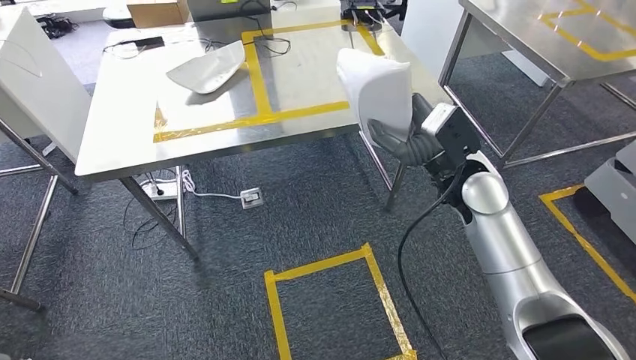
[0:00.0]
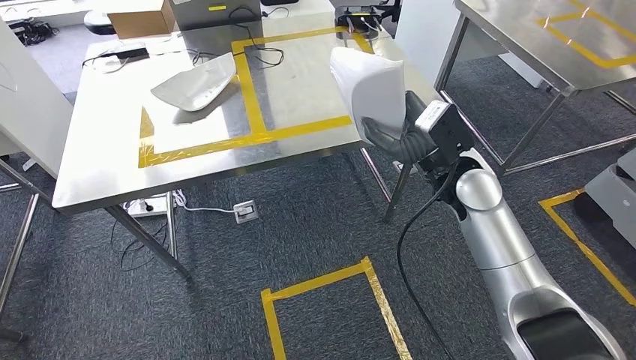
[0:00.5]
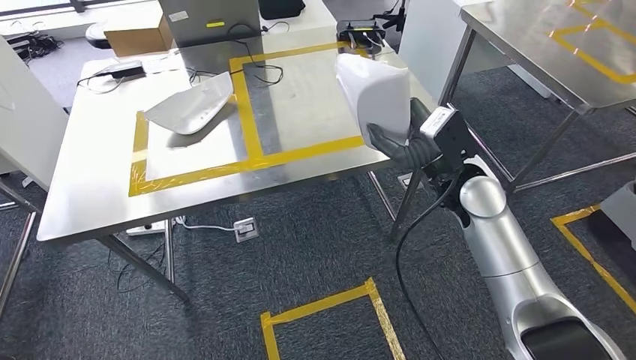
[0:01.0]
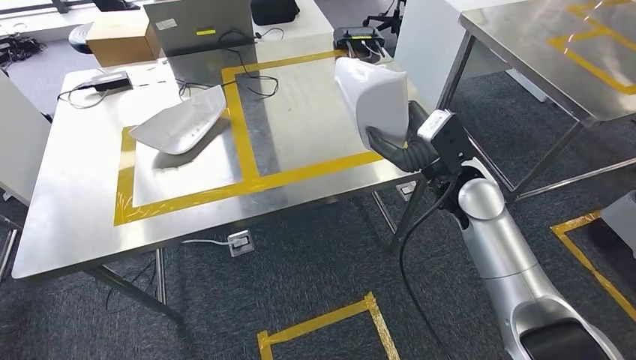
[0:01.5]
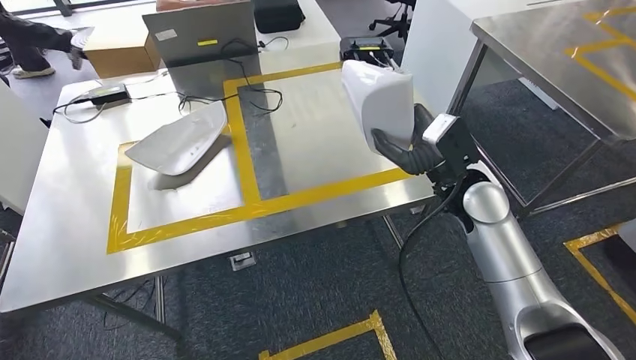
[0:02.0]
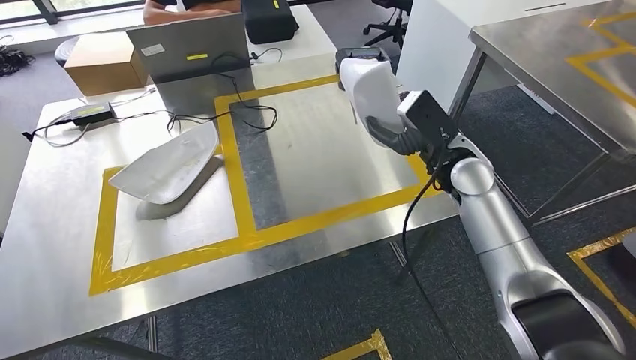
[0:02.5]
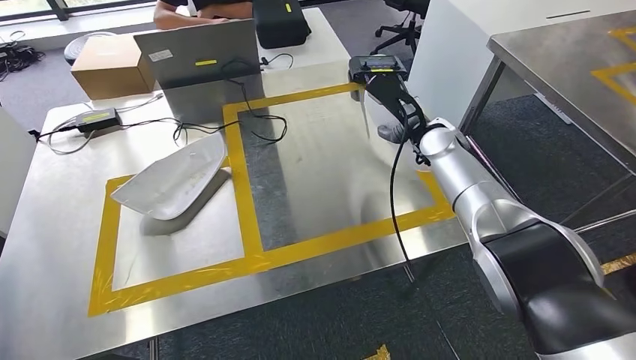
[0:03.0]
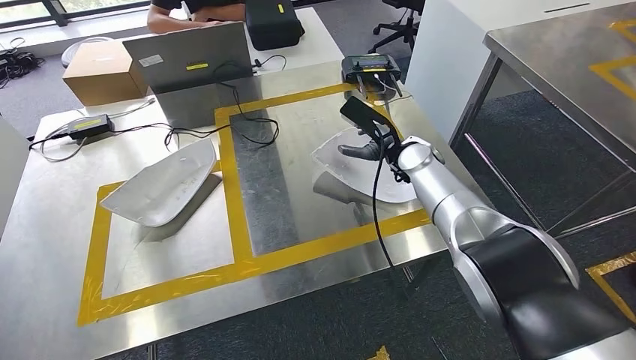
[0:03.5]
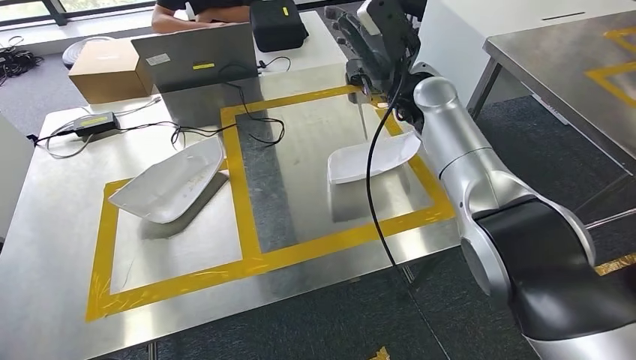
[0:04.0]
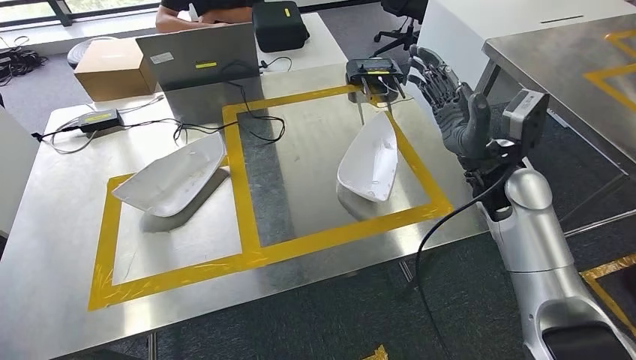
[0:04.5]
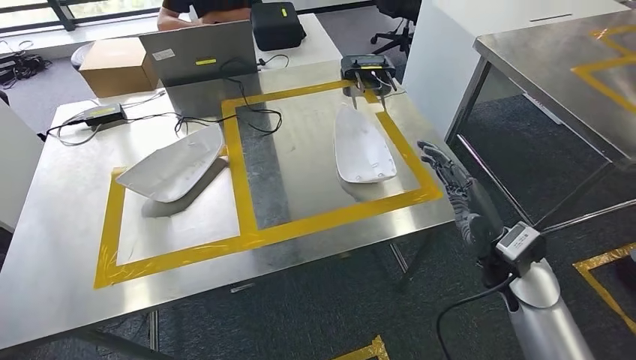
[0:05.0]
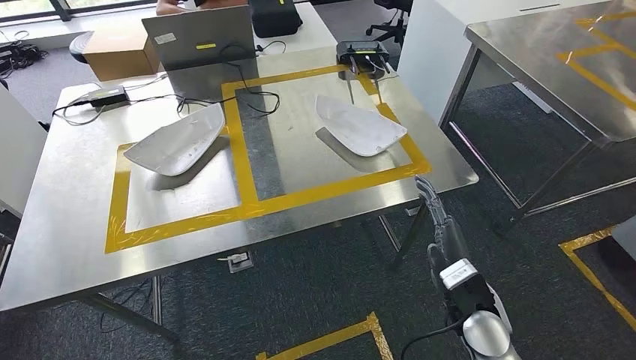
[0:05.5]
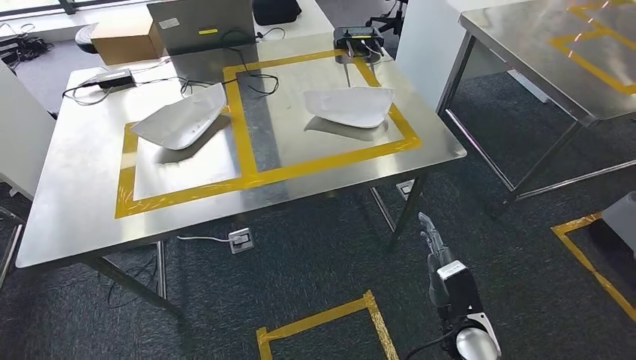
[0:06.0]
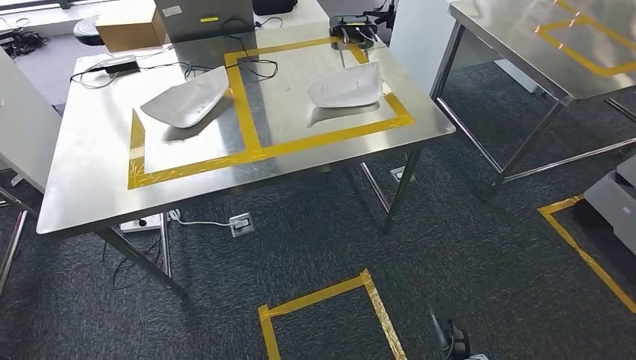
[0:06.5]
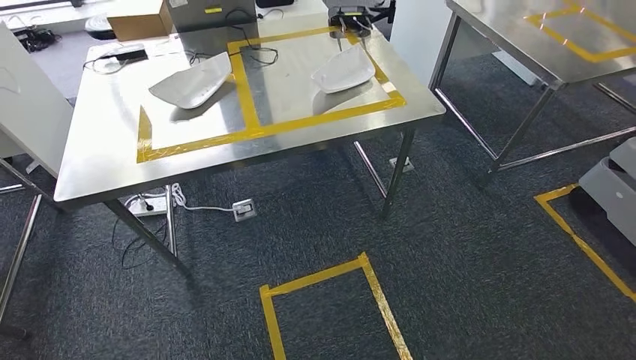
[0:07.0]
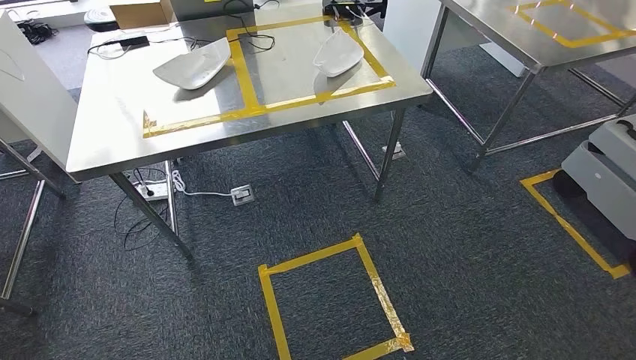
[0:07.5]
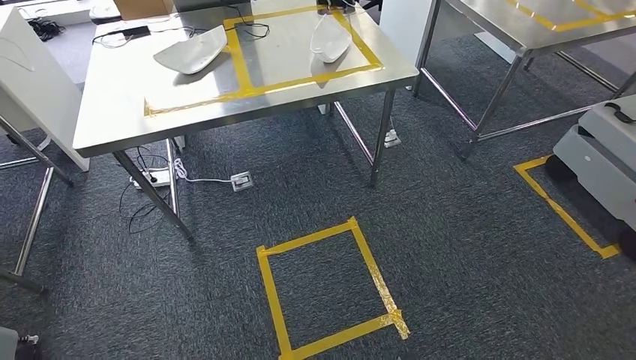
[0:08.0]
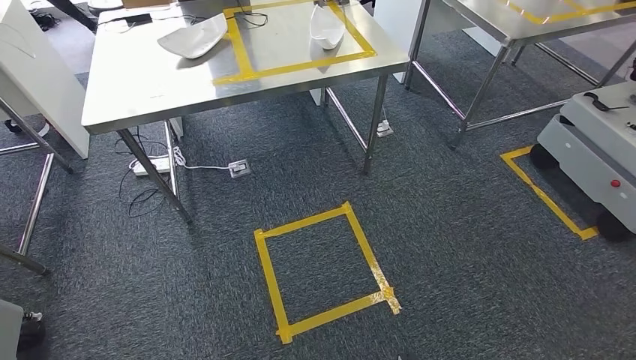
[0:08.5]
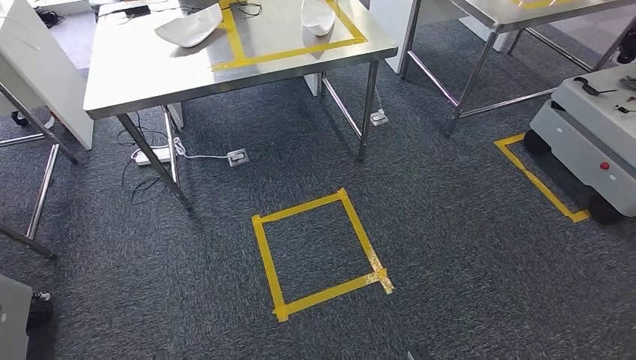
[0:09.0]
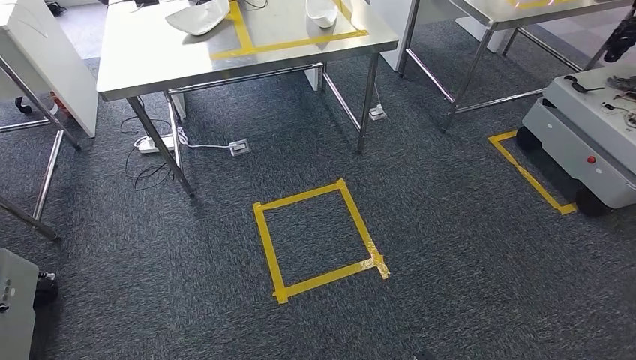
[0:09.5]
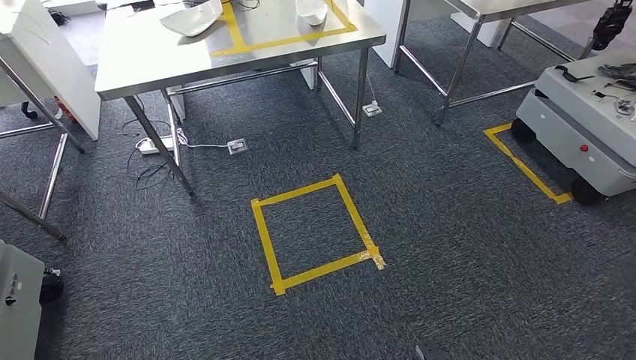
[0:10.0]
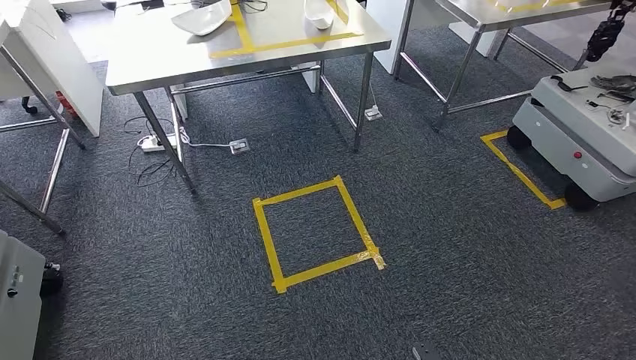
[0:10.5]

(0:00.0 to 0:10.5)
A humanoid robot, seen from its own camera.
Step, 0:00.0 - 0:04.5: Insert the small parts into the corresponding holes on the workbench.
Step, 0:05.0 - 0:10.0: Move to the initial position of the workbench.

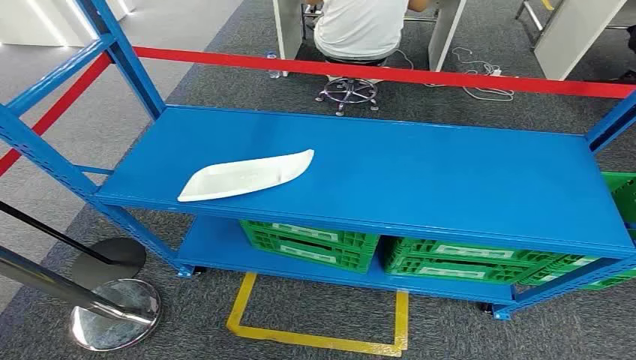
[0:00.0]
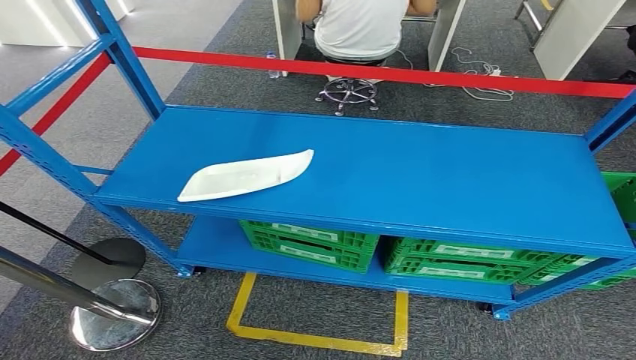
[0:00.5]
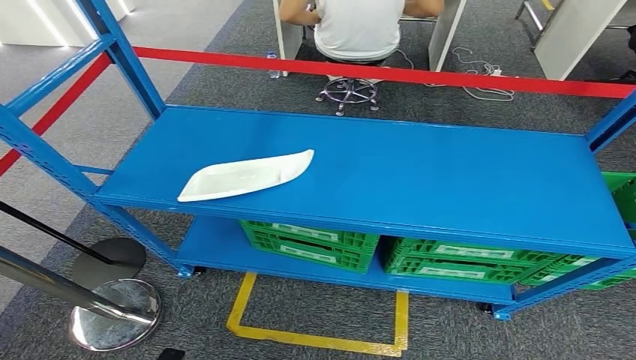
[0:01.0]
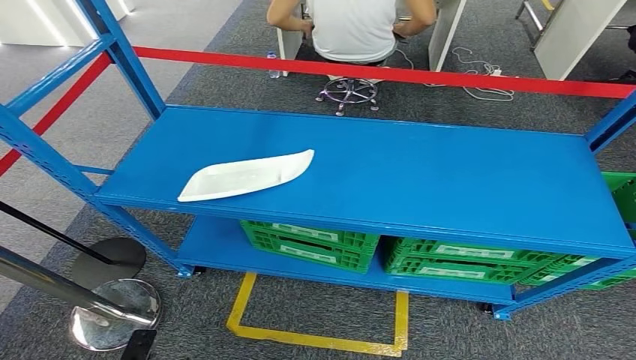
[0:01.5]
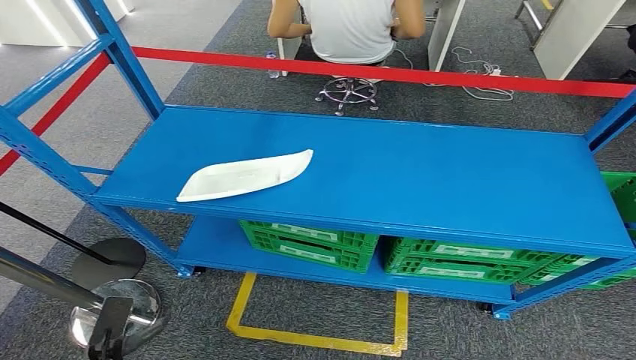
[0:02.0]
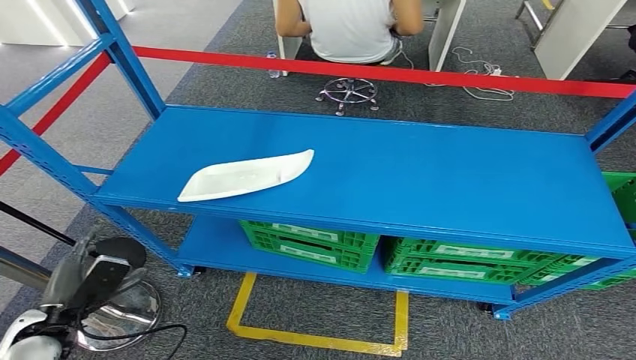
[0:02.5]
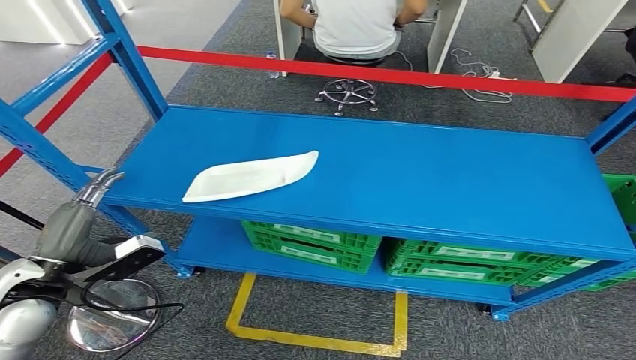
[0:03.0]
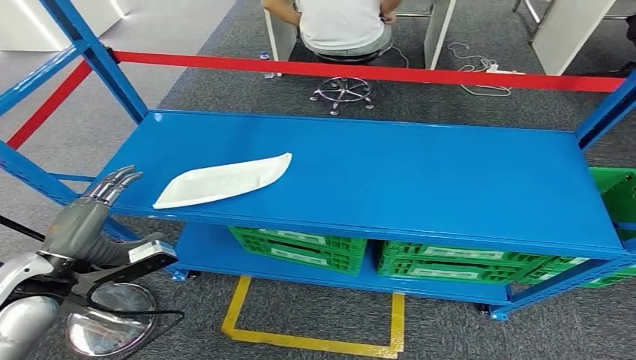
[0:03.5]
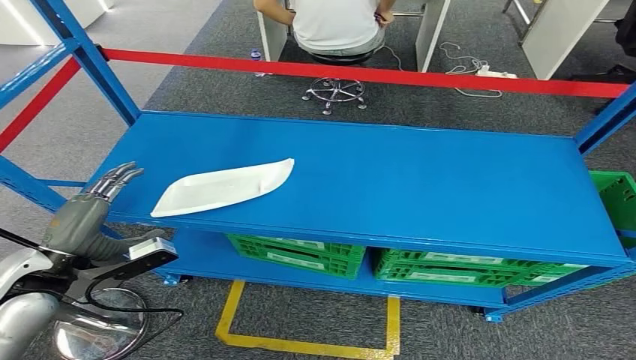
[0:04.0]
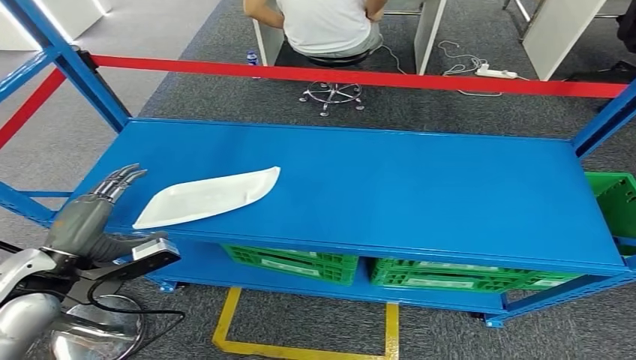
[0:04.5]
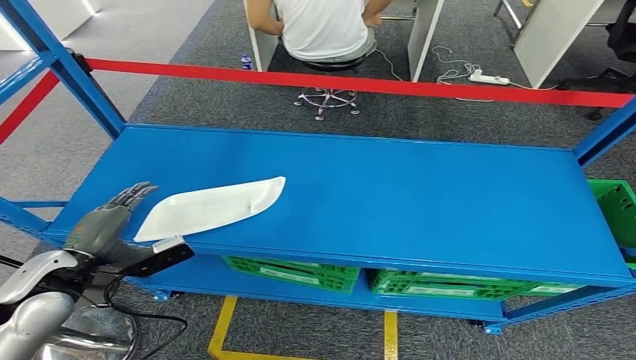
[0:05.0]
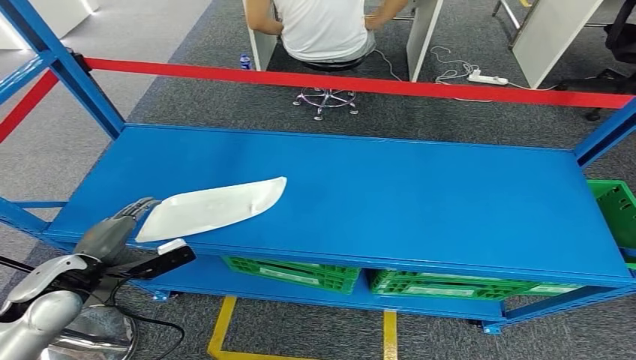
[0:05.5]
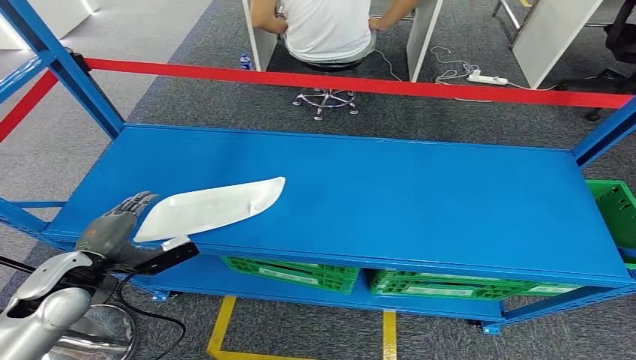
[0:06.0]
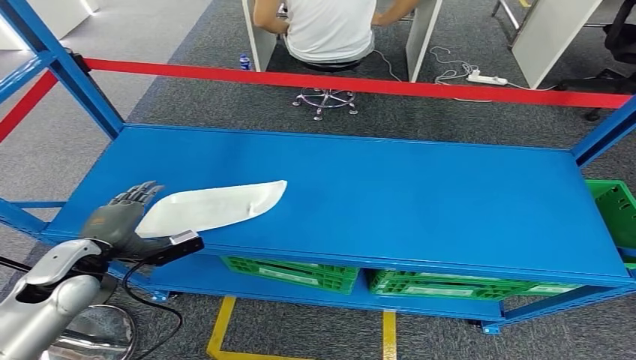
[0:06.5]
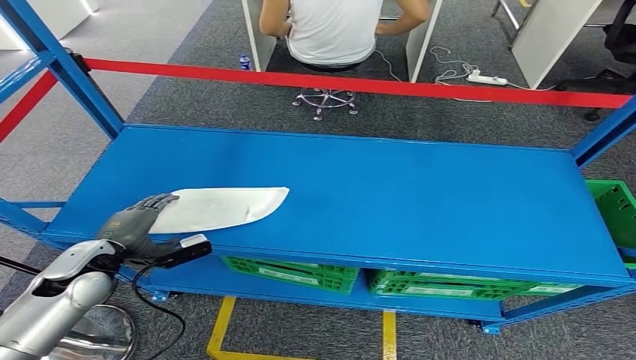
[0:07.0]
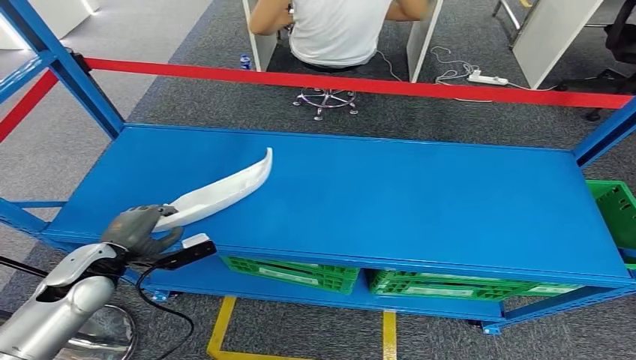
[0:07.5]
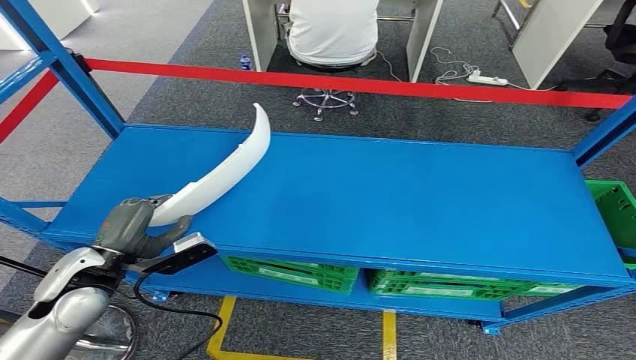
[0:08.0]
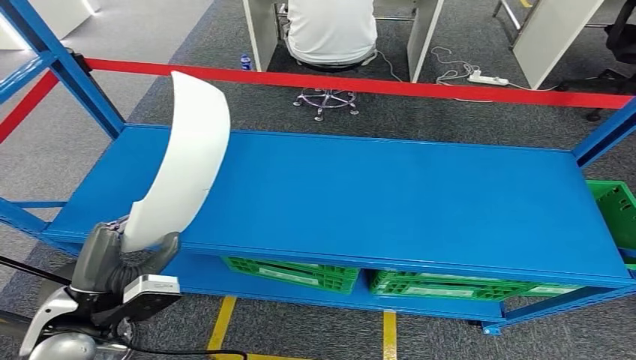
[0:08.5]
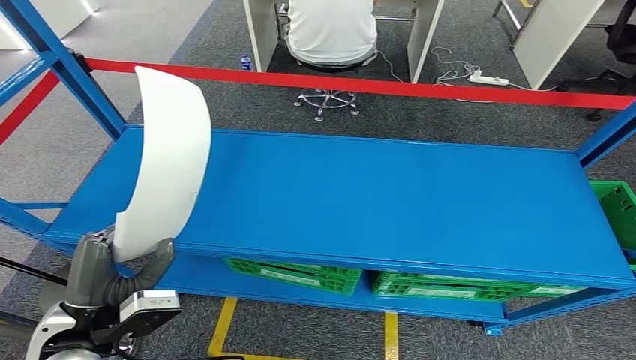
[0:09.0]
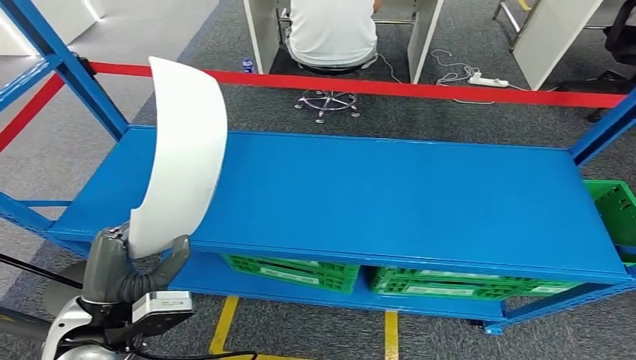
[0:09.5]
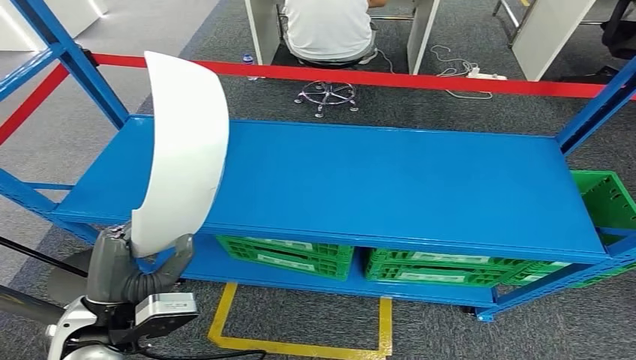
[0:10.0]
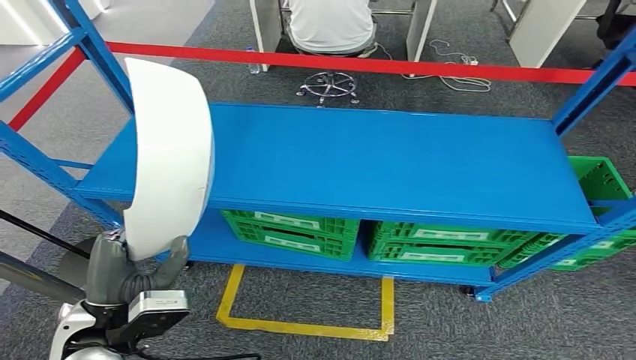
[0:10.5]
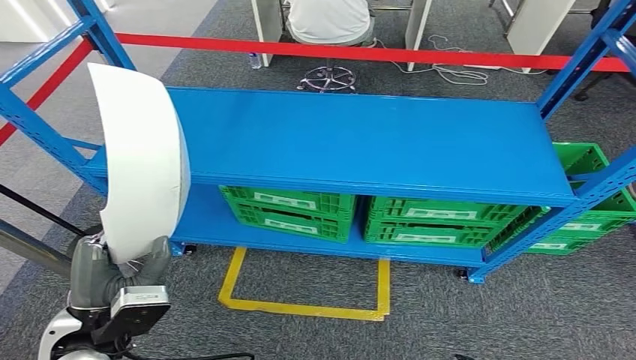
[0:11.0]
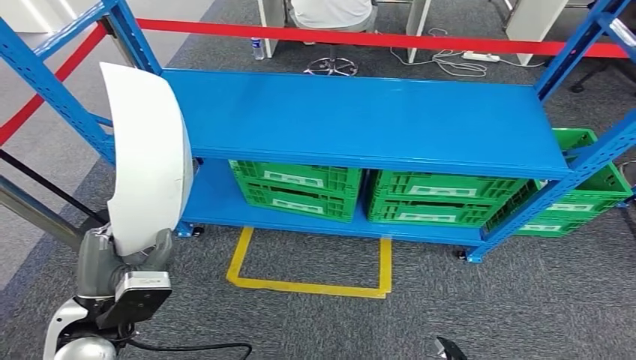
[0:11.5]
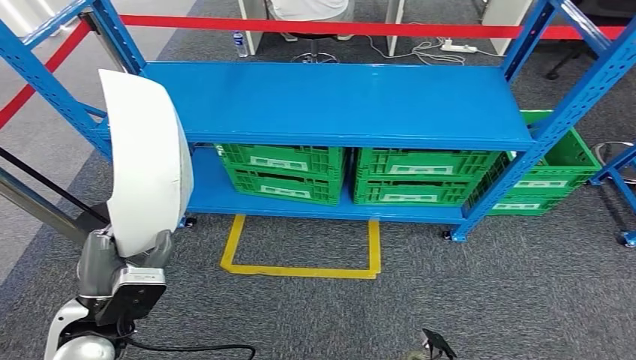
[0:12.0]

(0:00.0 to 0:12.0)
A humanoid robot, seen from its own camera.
Step, 0:00.0 - 0:08.5: Take small components from the rack.
